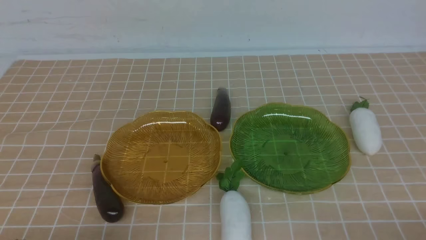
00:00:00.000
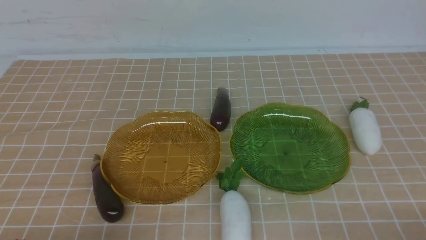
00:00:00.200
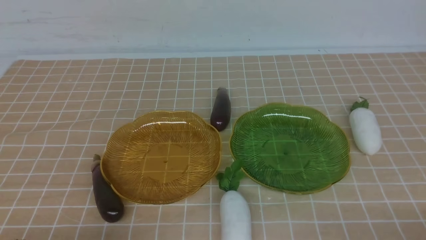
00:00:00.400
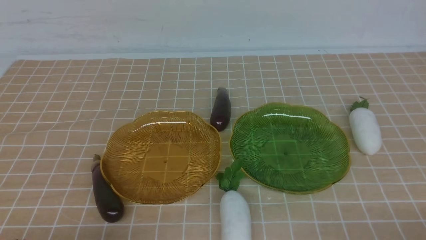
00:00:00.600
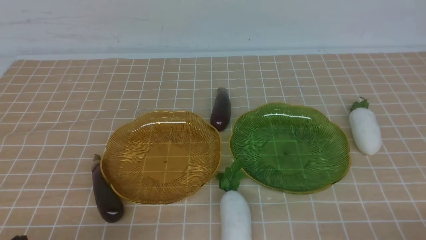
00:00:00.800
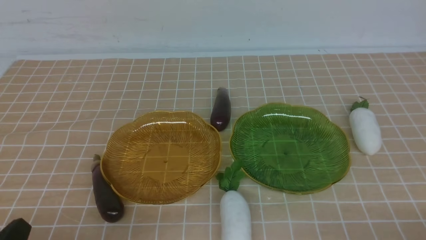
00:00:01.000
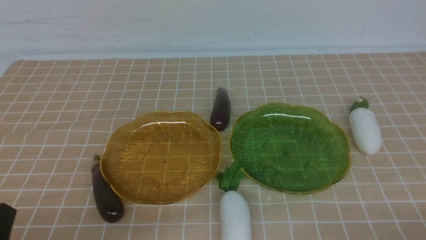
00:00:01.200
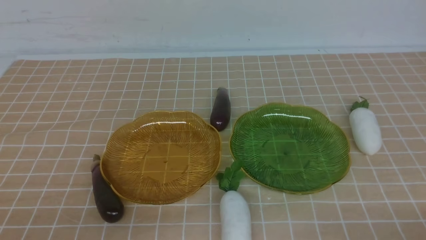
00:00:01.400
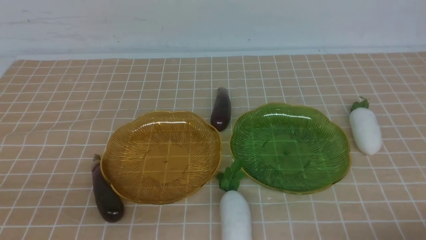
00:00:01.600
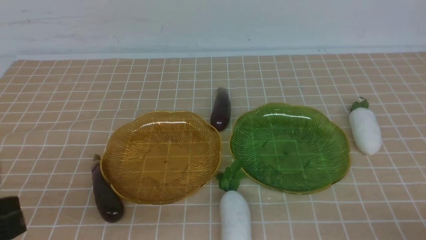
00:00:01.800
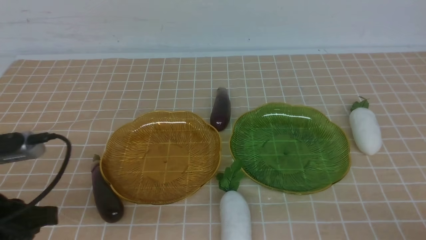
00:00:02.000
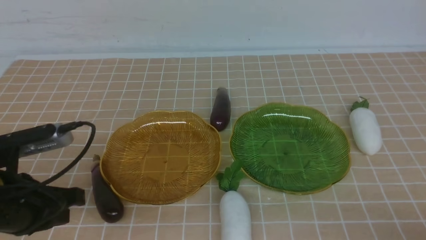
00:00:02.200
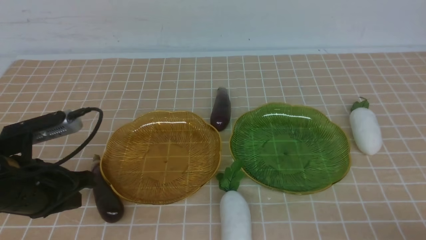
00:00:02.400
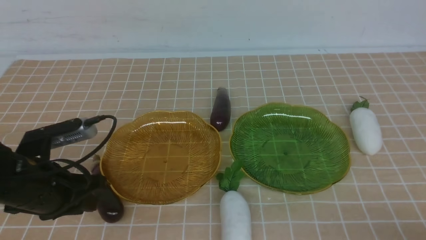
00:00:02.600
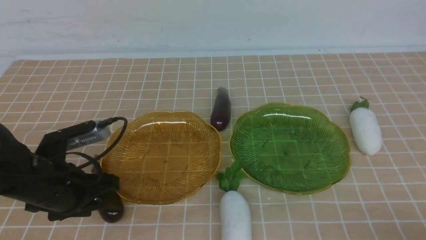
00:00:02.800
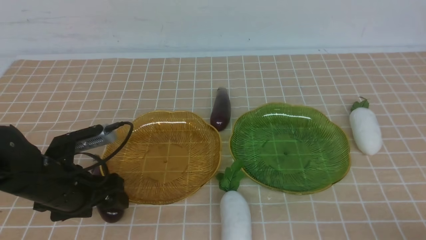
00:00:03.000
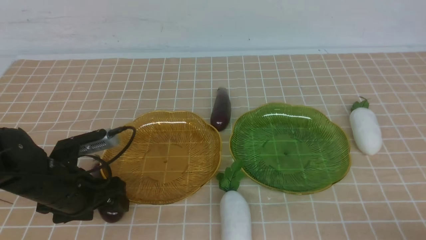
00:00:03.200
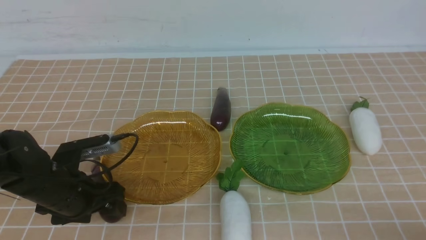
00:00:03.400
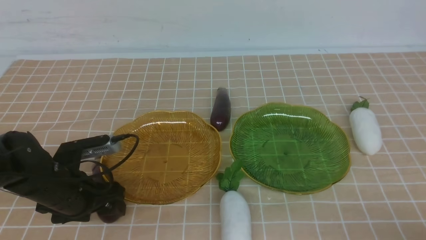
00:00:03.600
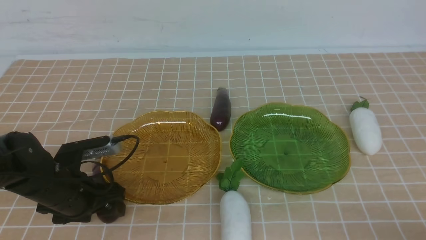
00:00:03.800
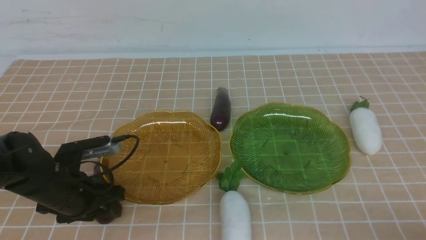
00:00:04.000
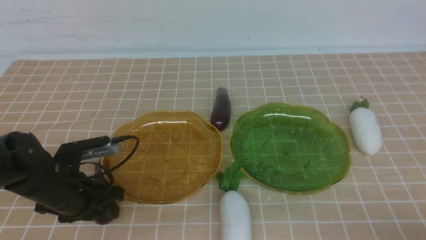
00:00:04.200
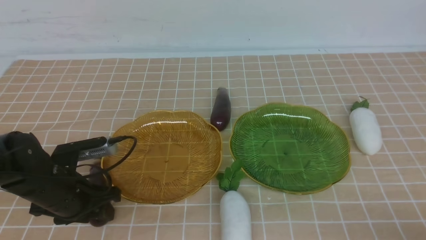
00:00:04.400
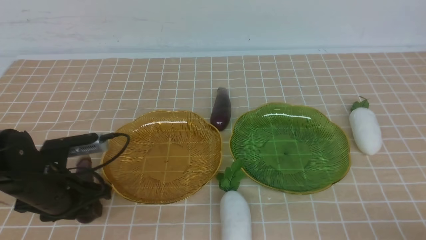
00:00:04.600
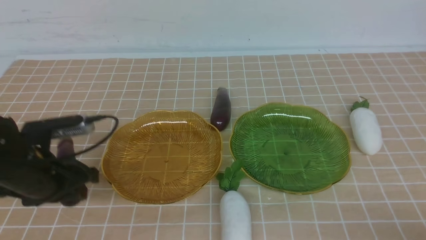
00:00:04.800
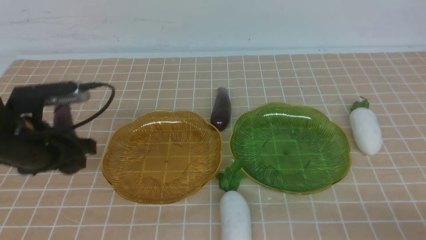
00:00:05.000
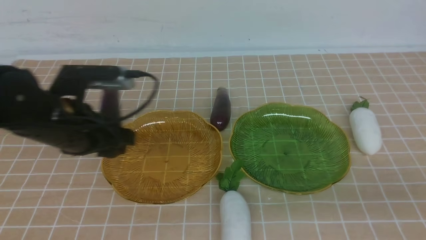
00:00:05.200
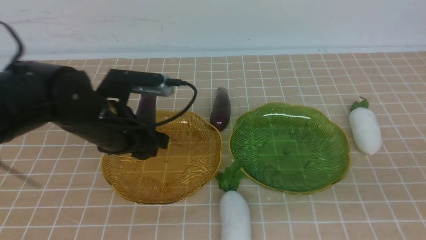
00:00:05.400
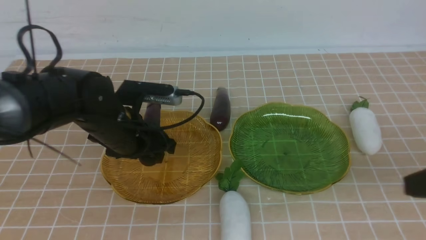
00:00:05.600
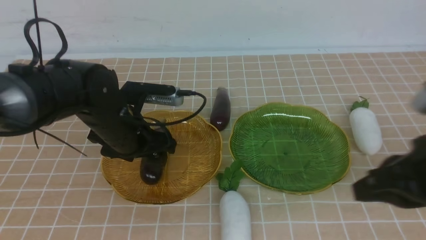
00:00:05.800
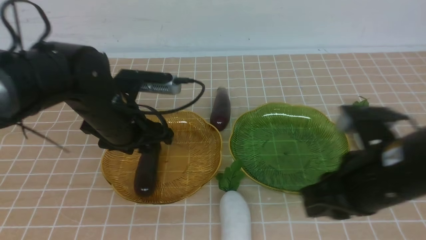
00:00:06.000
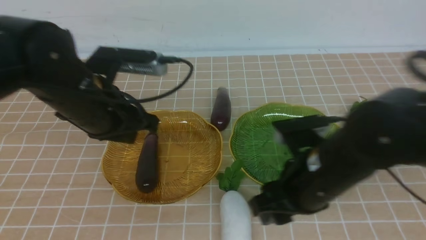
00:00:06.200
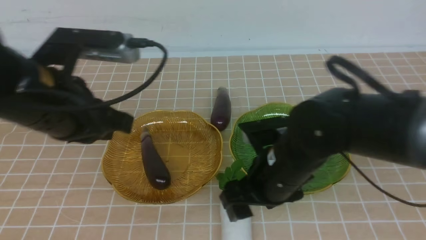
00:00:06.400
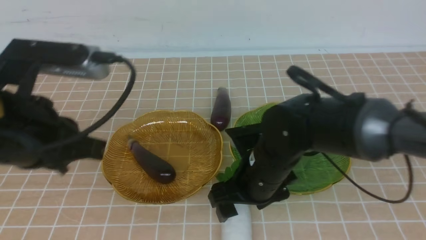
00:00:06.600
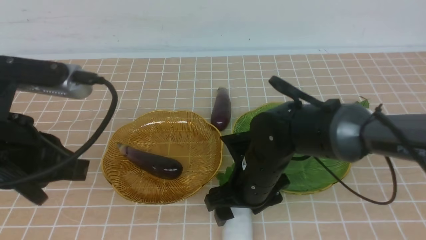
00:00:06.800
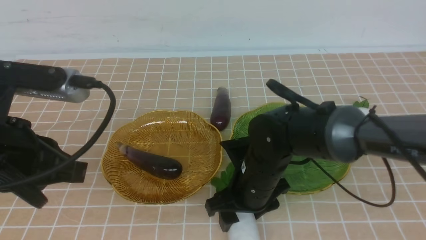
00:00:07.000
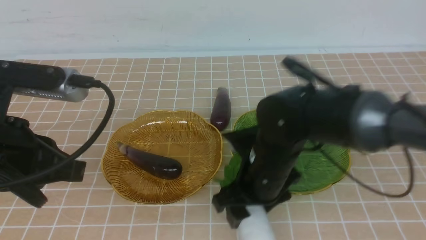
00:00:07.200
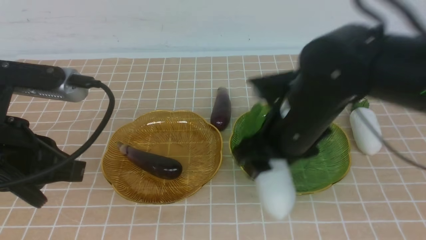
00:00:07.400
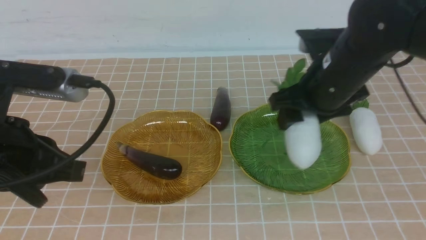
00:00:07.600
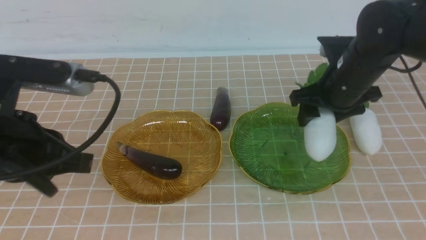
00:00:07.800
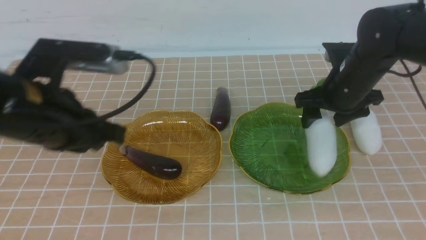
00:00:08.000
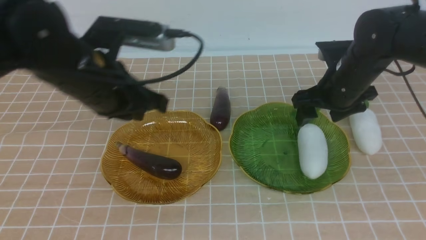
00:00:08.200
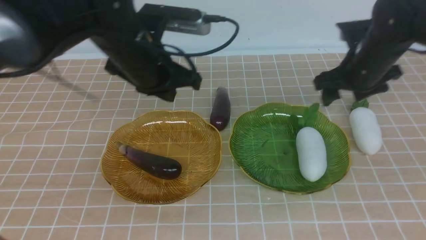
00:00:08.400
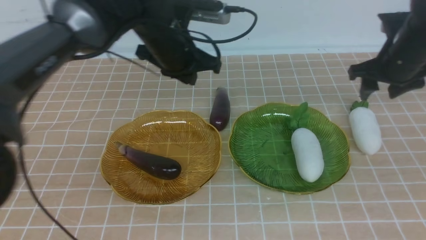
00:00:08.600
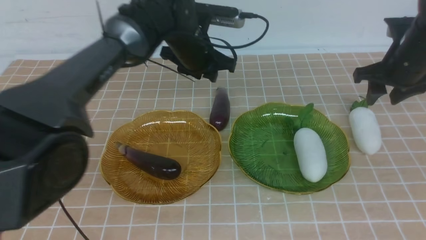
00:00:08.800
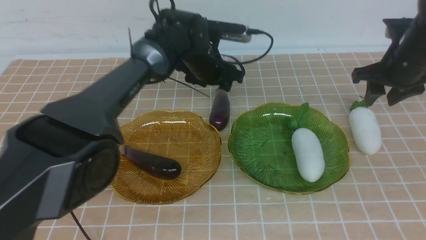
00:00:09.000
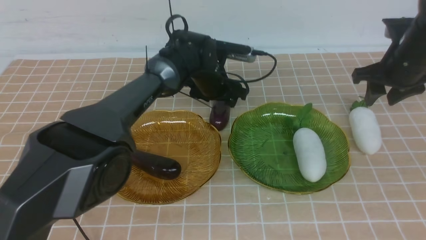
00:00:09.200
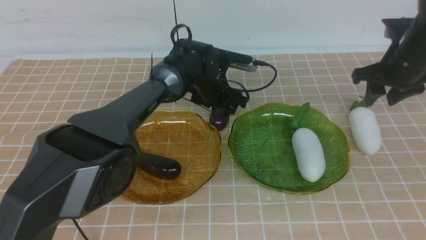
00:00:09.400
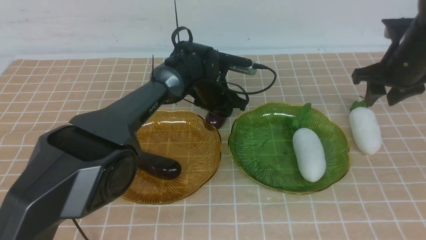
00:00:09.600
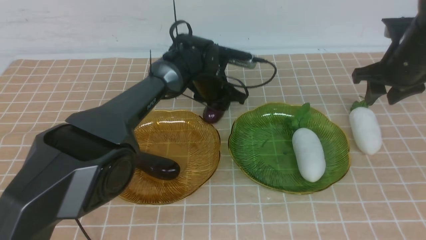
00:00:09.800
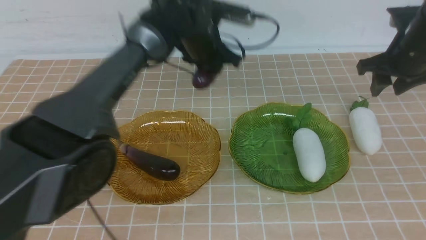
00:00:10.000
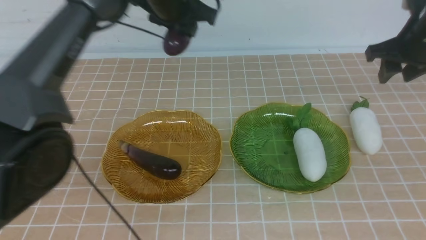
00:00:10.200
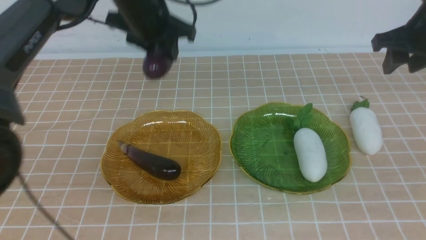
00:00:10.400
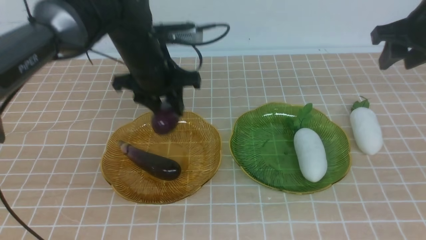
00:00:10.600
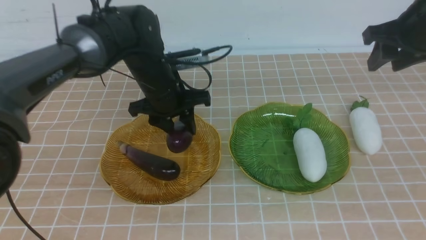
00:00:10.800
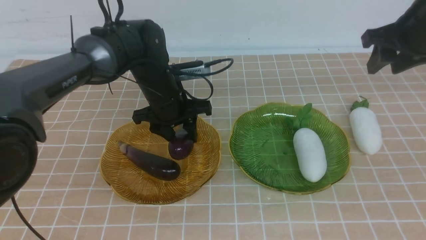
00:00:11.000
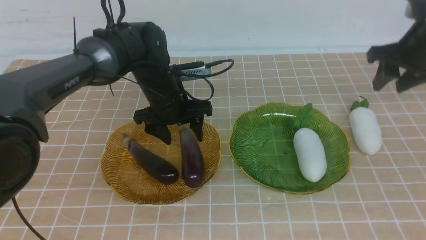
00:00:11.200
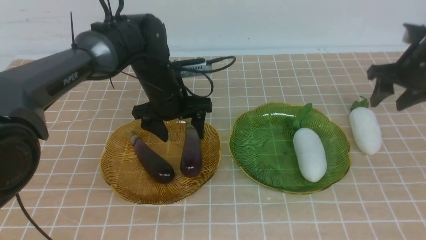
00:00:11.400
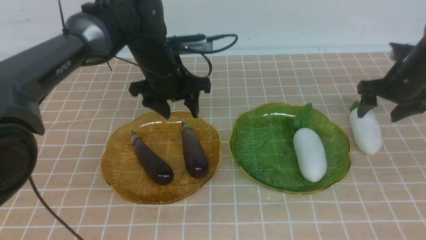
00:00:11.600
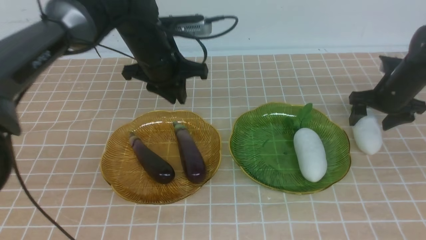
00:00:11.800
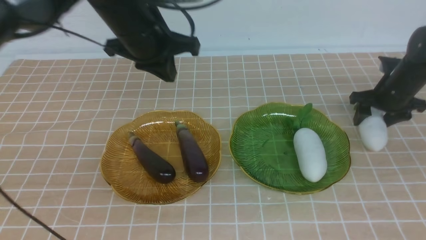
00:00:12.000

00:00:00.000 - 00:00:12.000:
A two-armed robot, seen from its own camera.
Step, 00:00:00.000 - 00:00:06.000: use the left arm to grab an eggplant and put it into the left plate.
Step, 00:00:06.200 - 00:00:08.200: use the right arm to grab a radish and put it into the right plate.
Step, 00:00:08.400 - 00:00:11.400: use the left arm to grab an eggplant and put it into the left plate.
00:00:01.600 - 00:00:03.000: The left gripper shifts some 20 cm forward and downward, and opens its fingers.
00:00:03.000 - 00:00:04.400: The left gripper closes.
00:00:04.400 - 00:00:06.000: The left gripper moves upward, to the right and forward, approximately 15 cm, while the right gripper moves forward, to the left and upward, some 20 cm.
00:00:06.000 - 00:00:07.600: The right gripper moves forward, roughly 10 cm, reaches roughly 10 cm to the left, then returns, and opens up, while the left gripper heads backward, upward and to the left, covering about 15 cm, and closes.
00:00:07.600 - 00:00:09.000: The right gripper is displaced to the right and forward by roughly 20 cm. The left gripper goes approximately 40 cm forward, to the right and downward, and opens its fingers.
00:00:09.000 - 00:00:10.400: The left gripper moves backward, to the left and upward, roughly 15 cm, and closes its fingers. Meanwhile the right gripper heads upward, covering about 10 cm.
00:00:10.400 - 00:00:12.000: The left gripper travels backward, upward and to the left by about 20 cm, and closes, while the right gripper goes roughly 15 cm downward and forward.

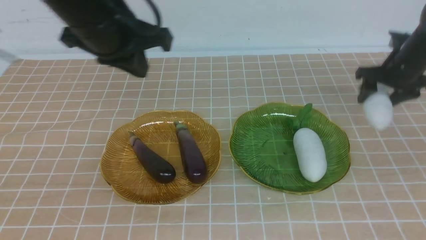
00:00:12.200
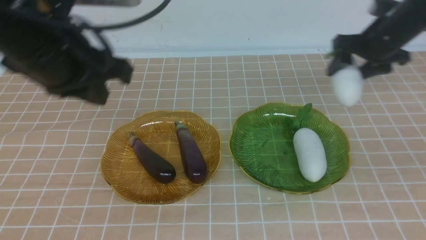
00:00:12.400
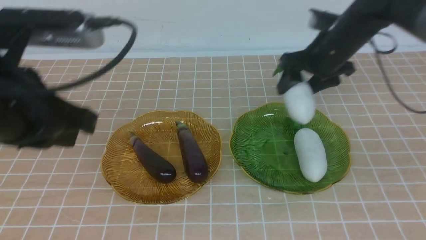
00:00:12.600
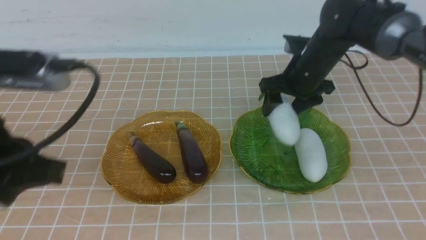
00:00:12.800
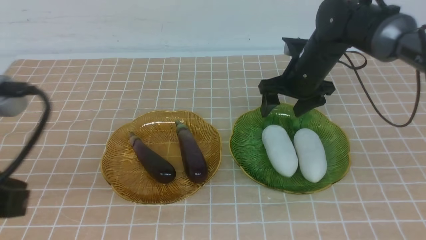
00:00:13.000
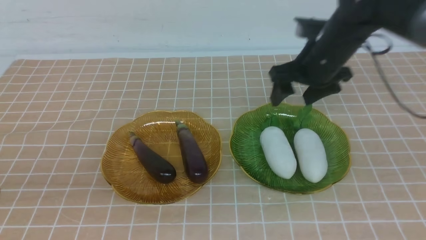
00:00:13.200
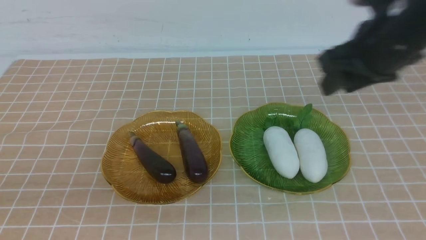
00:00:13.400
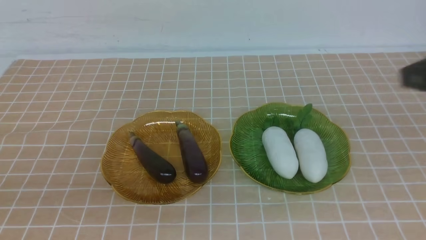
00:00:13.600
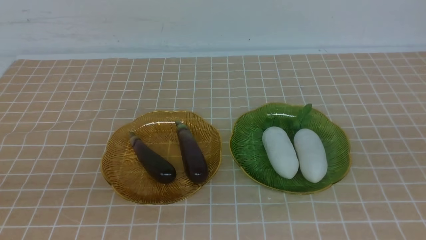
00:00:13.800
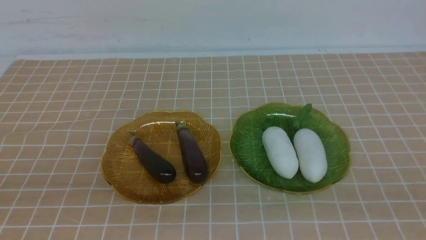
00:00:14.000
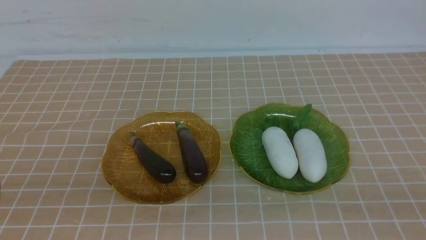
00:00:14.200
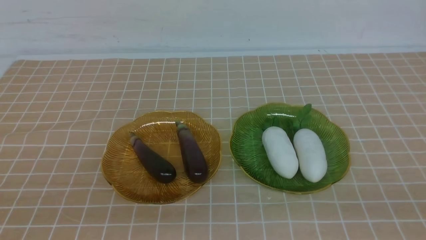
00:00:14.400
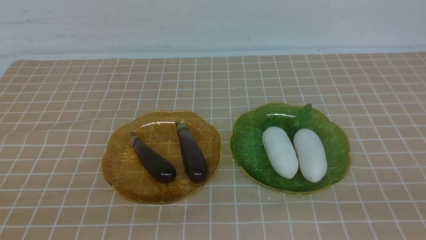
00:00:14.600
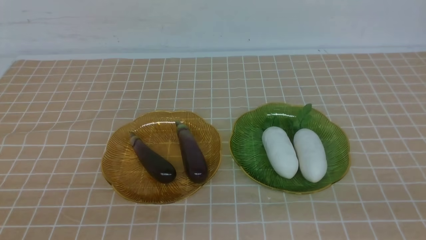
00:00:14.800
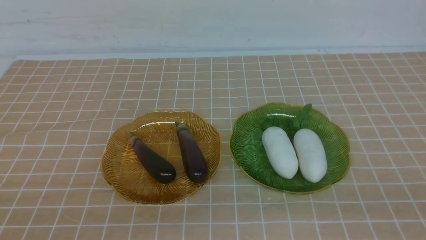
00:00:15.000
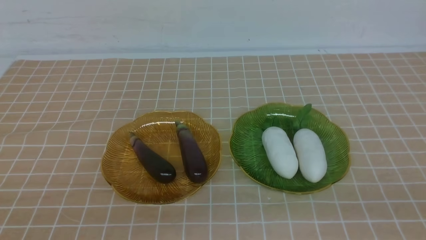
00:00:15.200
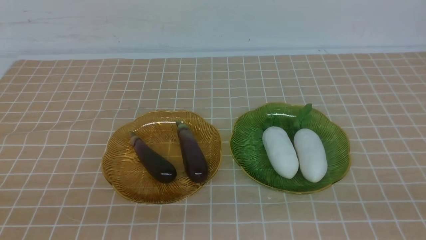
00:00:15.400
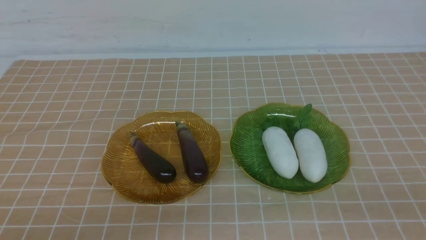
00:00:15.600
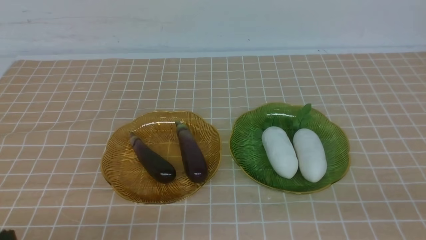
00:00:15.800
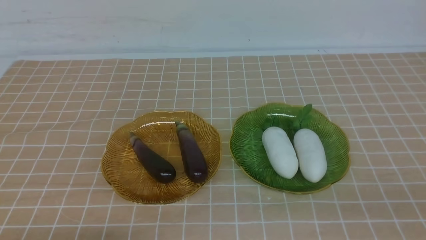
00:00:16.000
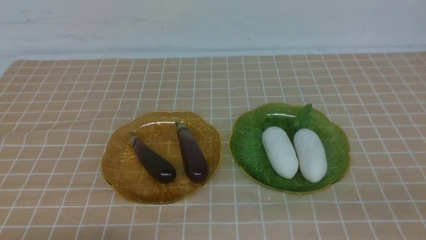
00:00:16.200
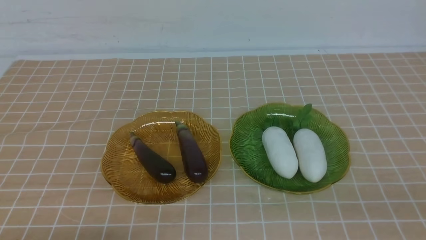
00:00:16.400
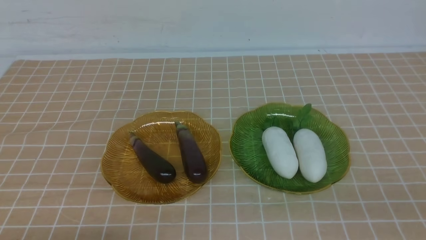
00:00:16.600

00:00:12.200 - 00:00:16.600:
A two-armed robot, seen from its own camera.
Step, 00:00:12.200 - 00:00:13.200: use the right arm to grab a radish and put it into the right plate.
00:00:12.200 - 00:00:13.600: The right gripper goes some 40 cm backward, and closes up; the left gripper moves backward, approximately 15 cm.
00:00:13.600 - 00:00:15.200: The left gripper moves downward, roughly 15 cm.
